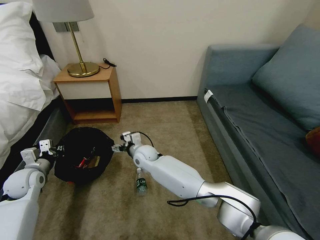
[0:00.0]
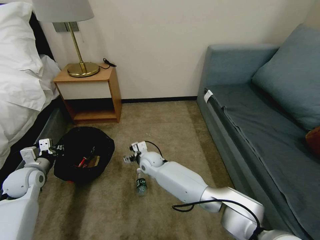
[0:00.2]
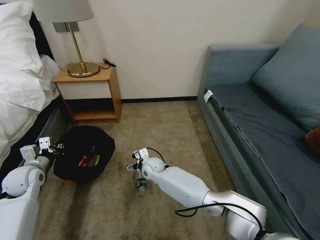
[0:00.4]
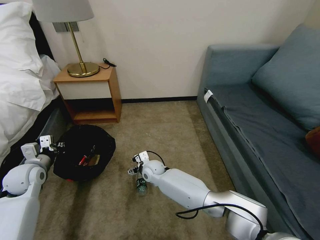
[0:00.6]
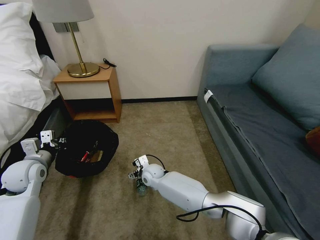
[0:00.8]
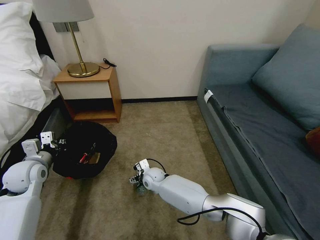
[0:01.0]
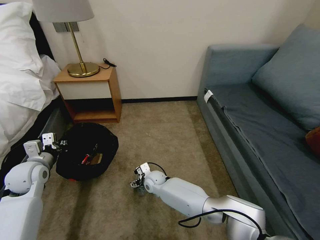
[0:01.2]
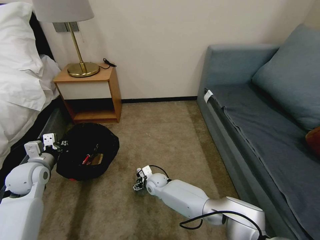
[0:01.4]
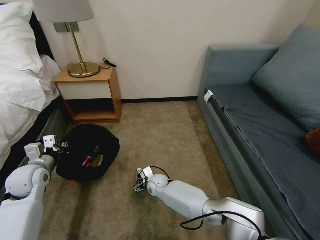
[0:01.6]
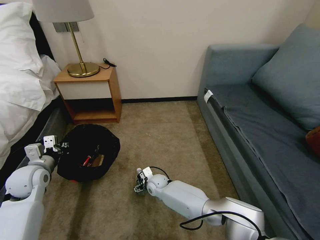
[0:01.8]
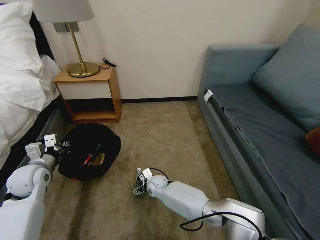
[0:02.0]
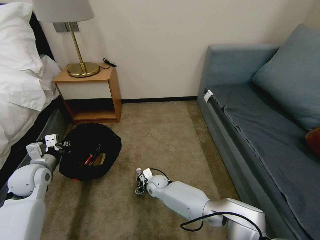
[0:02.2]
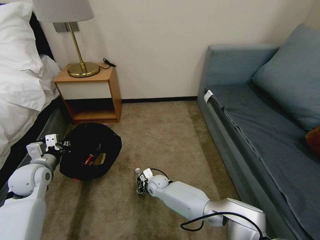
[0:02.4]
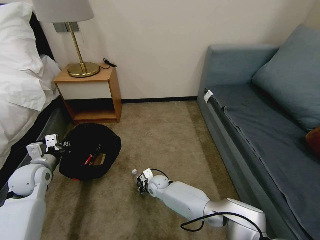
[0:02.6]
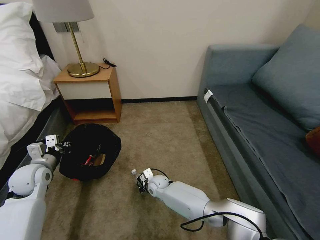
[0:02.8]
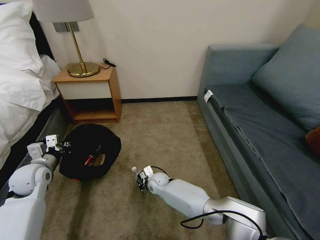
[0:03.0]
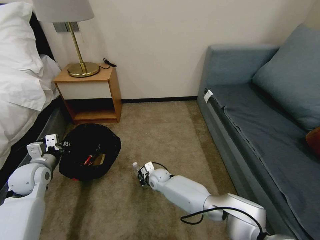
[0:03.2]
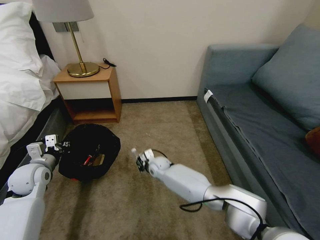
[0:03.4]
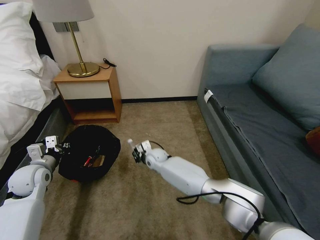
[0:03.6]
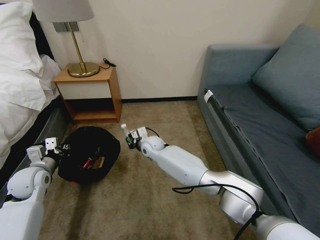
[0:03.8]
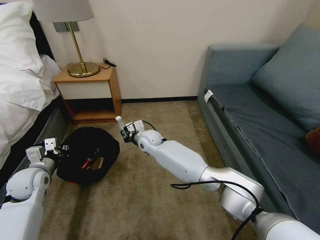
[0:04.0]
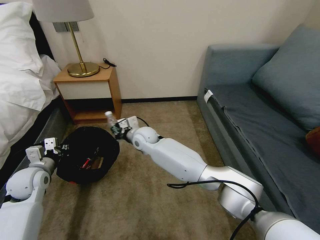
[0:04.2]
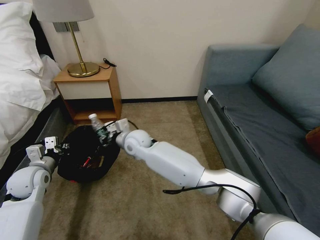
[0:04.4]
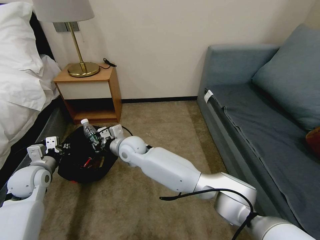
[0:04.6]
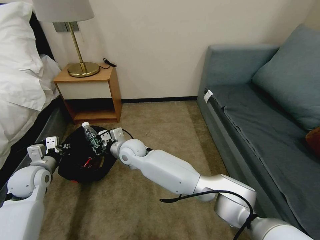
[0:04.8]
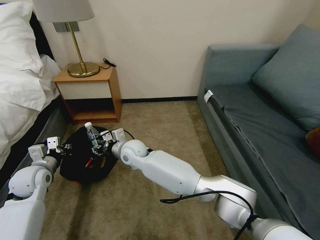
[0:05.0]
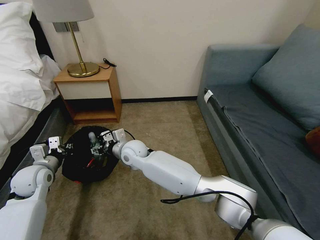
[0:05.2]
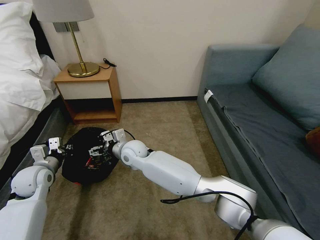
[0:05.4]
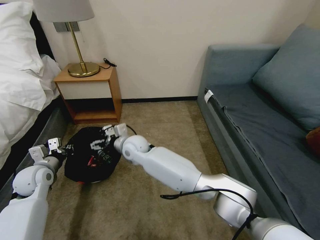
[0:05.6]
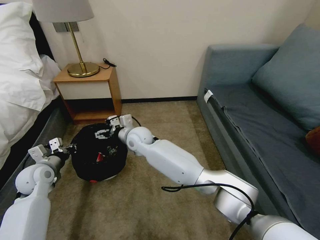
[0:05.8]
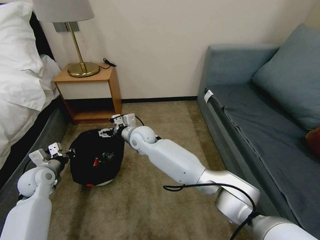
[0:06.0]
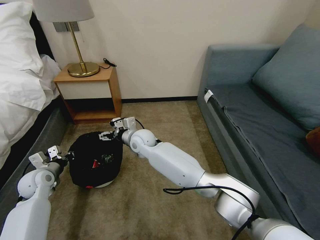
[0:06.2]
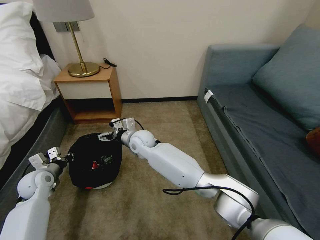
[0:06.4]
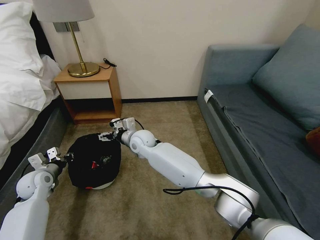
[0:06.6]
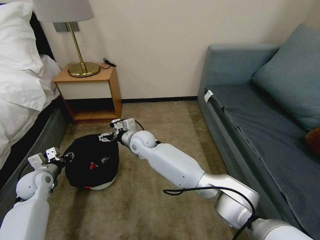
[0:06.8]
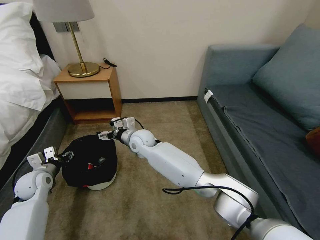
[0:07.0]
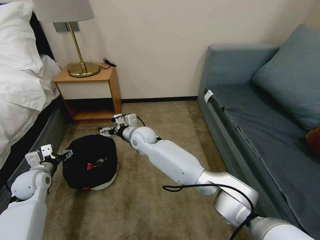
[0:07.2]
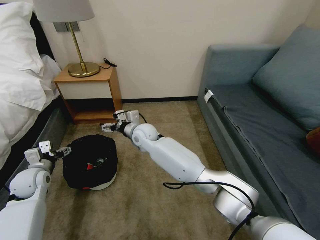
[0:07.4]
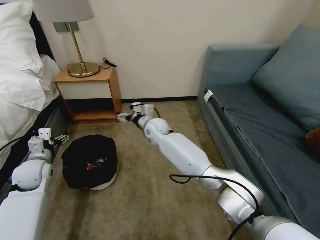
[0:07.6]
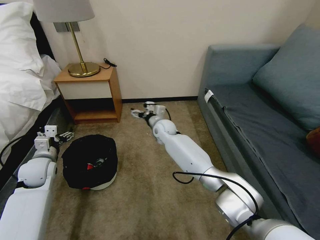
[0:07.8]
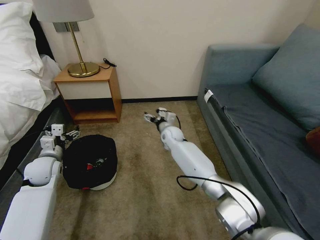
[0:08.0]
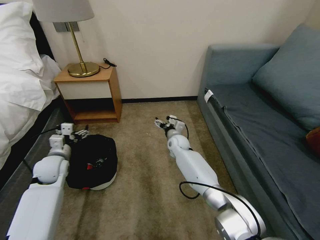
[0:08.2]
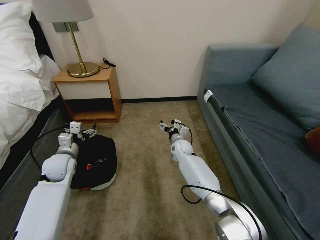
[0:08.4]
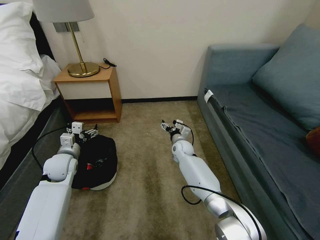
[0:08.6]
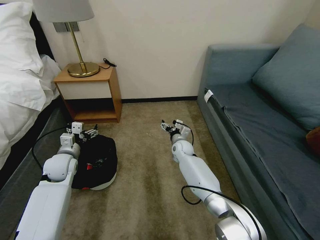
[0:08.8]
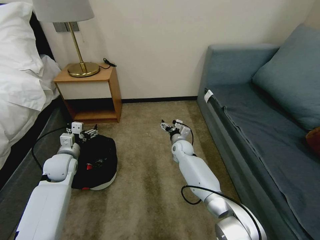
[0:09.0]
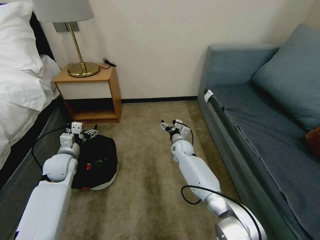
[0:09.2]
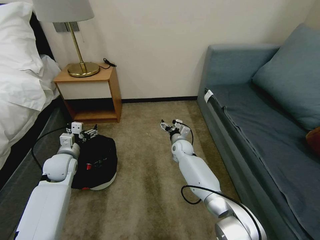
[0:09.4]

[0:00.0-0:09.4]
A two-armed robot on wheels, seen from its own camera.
Task of the whole recording: Pick up the trash bin, then pick up the garbage on the floor and place it into the trash bin.
0:00.0 to 0:01.6: The left gripper moves approximately 5 cm. The right gripper goes about 15 cm downward.
0:01.6 to 0:03.2: The right gripper closes up.
0:03.2 to 0:04.8: The right gripper heads upward and to the left, covering roughly 20 cm.
0:04.8 to 0:06.2: The right gripper changes place by about 5 cm, and opens.
0:06.2 to 0:07.8: The left gripper opens up. The right gripper moves to the right and forward, about 10 cm.
0:07.8 to 0:09.4: The left gripper travels to the right by some 5 cm; the right gripper is displaced downward and to the right by some 15 cm.

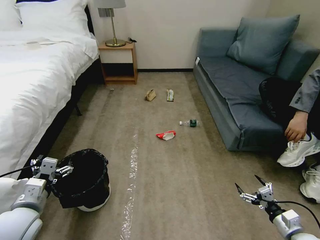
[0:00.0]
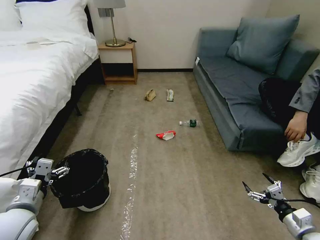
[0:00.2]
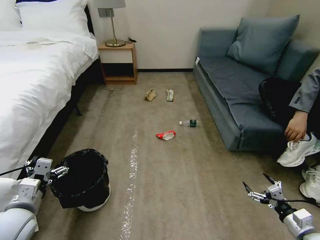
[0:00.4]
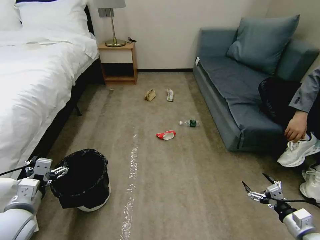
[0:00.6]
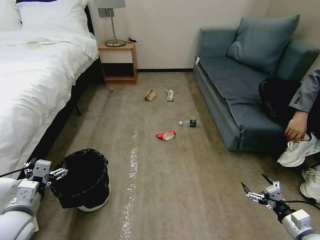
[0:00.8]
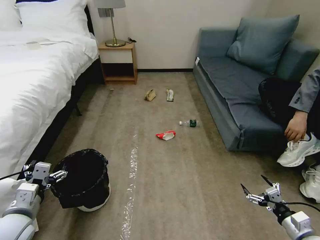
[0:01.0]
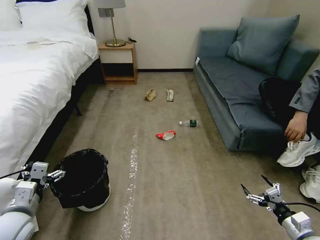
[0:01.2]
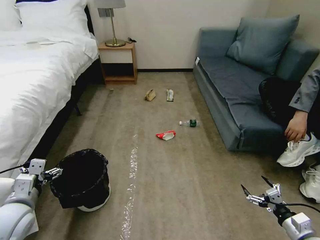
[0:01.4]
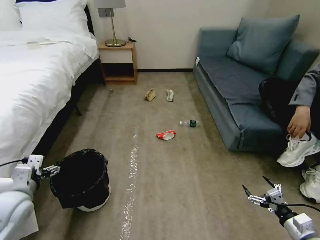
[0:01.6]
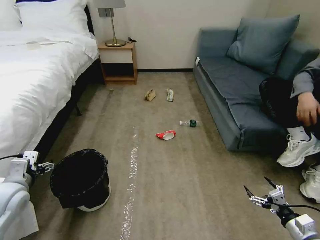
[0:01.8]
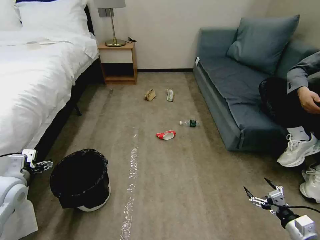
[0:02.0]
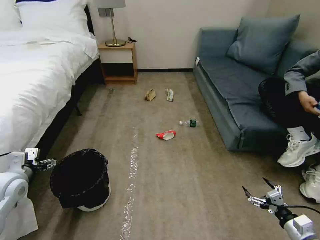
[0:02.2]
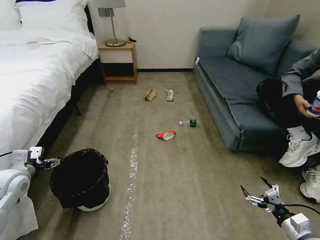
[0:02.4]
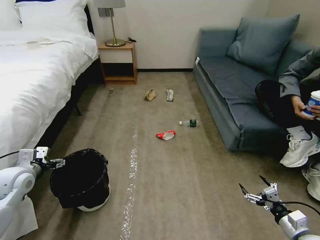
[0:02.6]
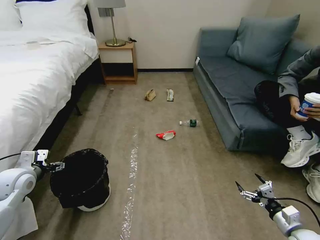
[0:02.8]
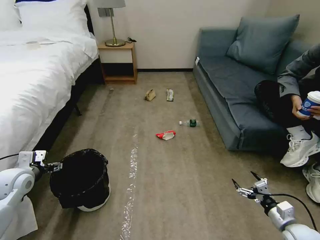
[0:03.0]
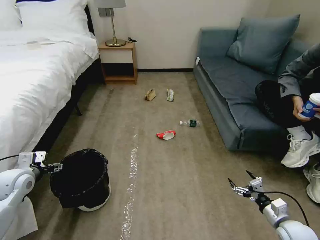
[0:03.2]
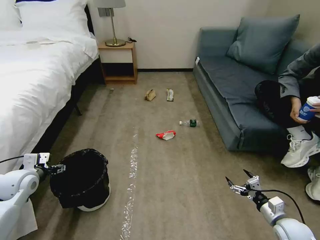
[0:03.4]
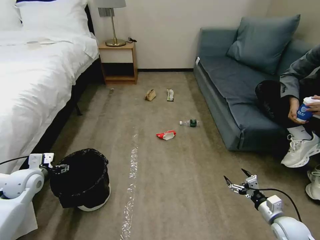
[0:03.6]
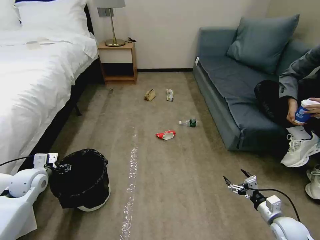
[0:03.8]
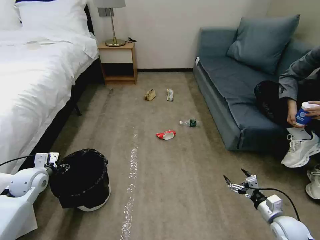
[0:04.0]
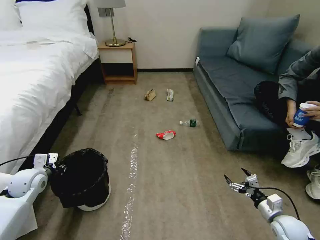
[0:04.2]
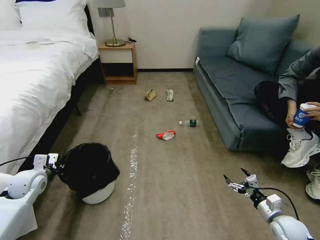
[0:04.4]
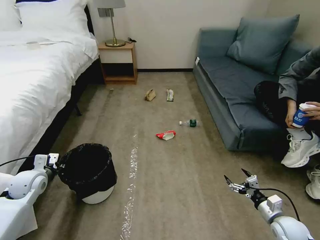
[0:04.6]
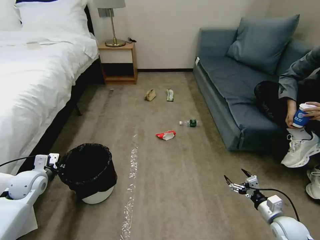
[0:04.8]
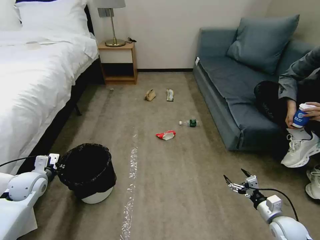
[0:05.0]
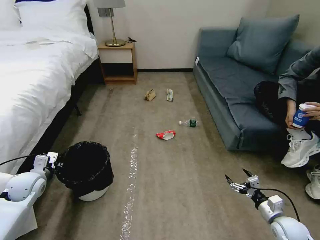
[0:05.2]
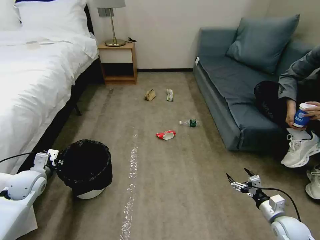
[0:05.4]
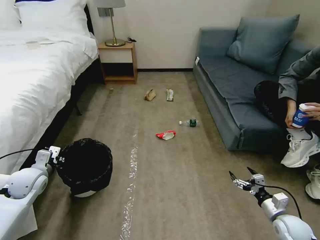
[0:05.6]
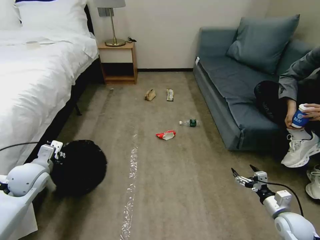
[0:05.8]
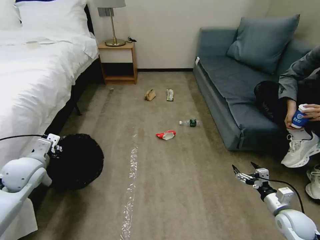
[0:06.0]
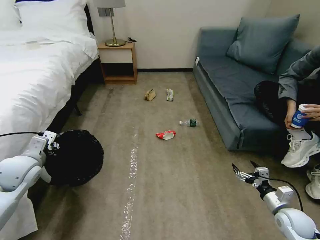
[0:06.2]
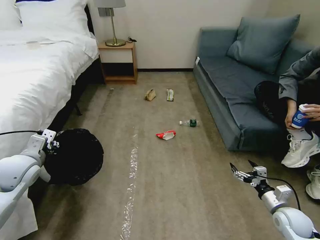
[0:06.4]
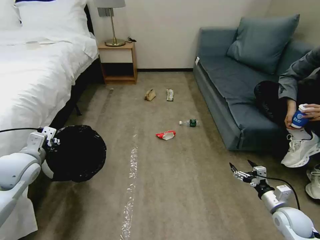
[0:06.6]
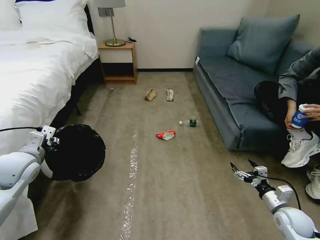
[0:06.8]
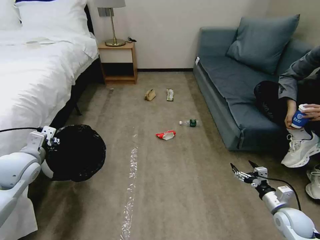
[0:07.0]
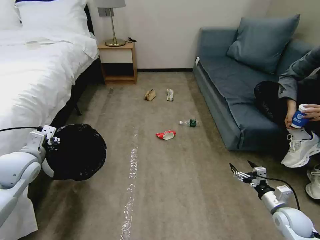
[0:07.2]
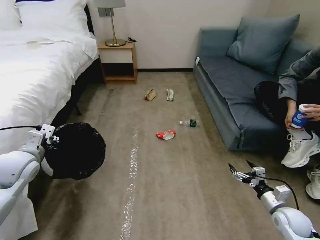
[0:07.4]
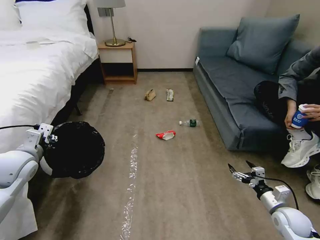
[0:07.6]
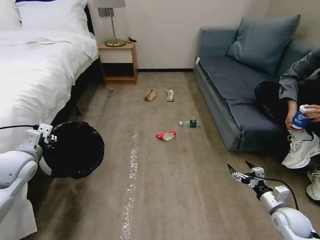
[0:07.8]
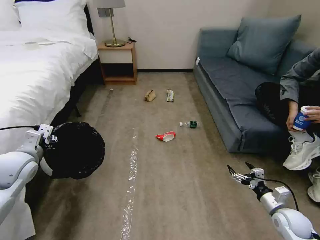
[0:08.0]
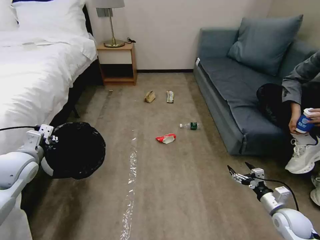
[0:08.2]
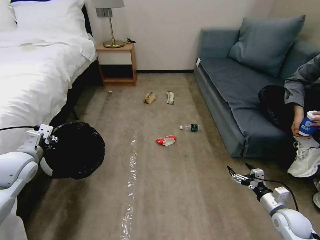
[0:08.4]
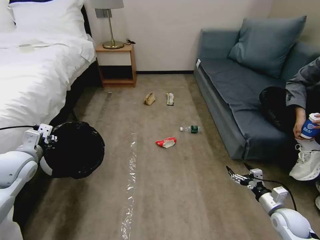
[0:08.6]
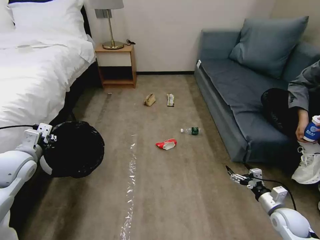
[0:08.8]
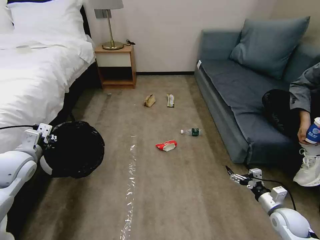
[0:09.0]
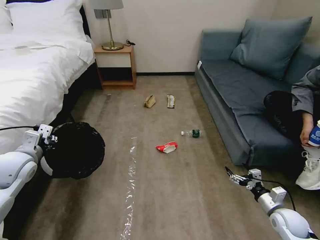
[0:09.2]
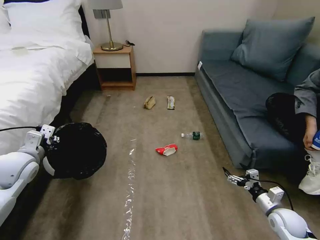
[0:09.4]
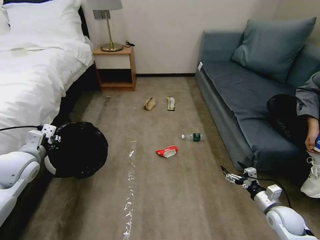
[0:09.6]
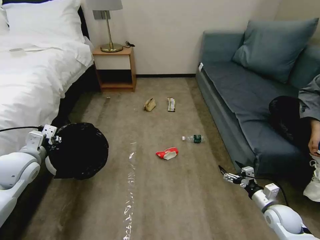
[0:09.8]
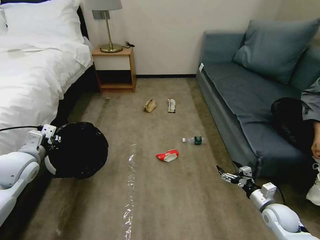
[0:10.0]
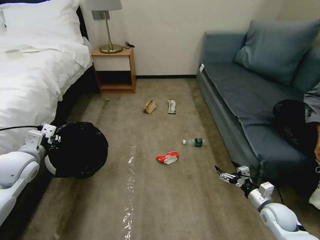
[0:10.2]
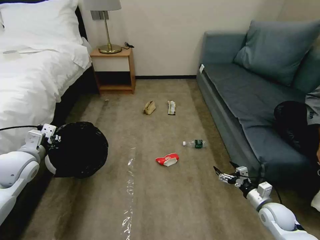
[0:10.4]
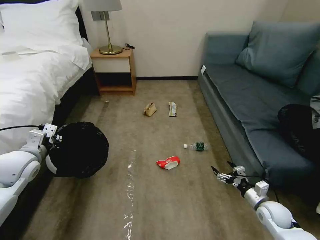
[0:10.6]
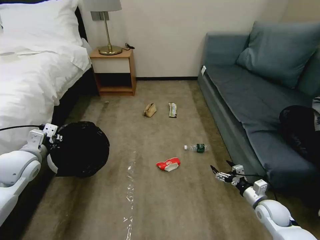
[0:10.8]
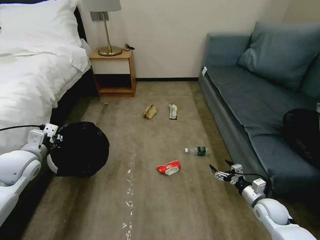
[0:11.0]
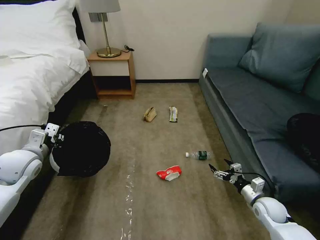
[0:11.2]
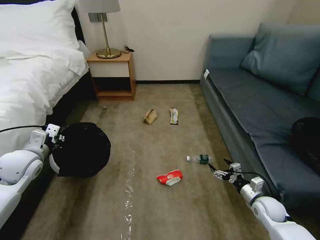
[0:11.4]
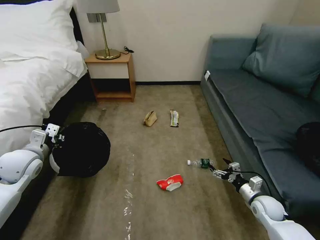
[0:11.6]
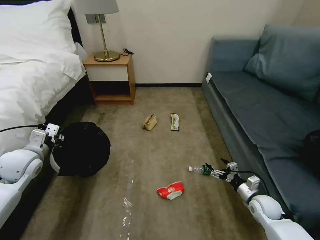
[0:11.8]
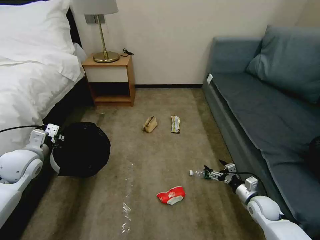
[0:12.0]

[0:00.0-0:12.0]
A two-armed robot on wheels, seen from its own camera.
Task of the whole recording: Pick up the trash bin, then pick up the garbage on the floor and place it into the trash bin.
0:01.6 to 0:03.0: The left gripper goes about 10 cm forward and to the left. Meanwhile the right gripper ends up about 5 cm from where it was.
0:03.0 to 0:04.4: The left gripper closes its fingers.
0:04.4 to 0:06.0: The left gripper shifts about 10 cm upward.
0:06.0 to 0:07.6: The grippers move only a little.
0:07.6 to 0:09.0: Neither gripper changes place.

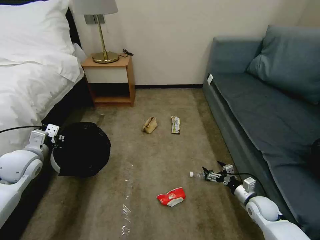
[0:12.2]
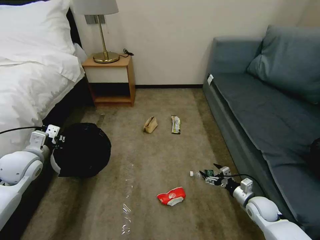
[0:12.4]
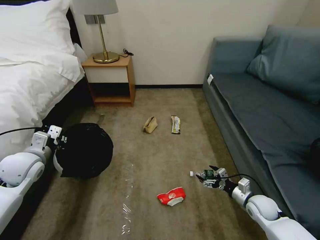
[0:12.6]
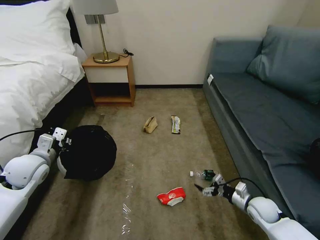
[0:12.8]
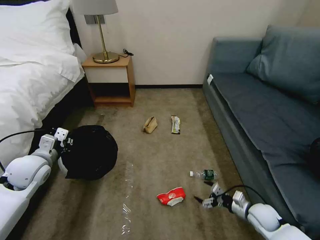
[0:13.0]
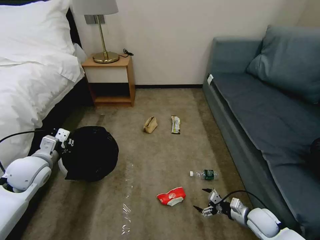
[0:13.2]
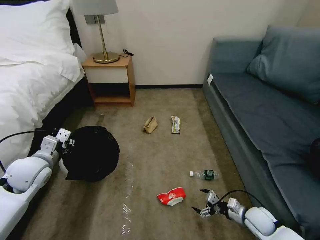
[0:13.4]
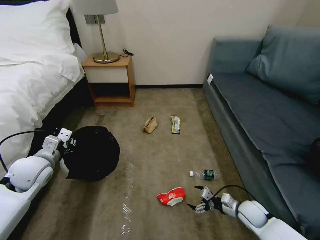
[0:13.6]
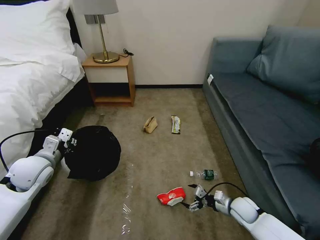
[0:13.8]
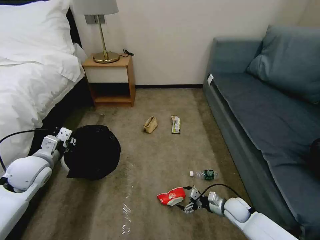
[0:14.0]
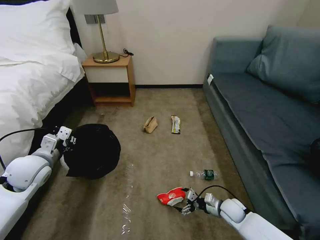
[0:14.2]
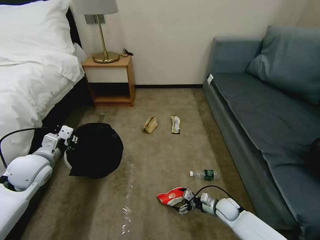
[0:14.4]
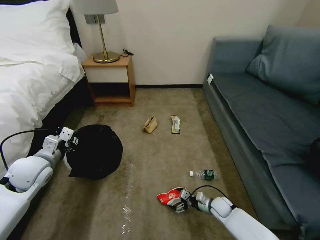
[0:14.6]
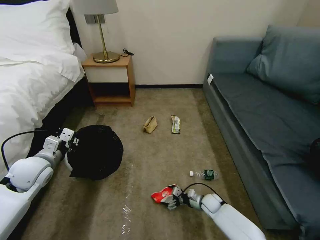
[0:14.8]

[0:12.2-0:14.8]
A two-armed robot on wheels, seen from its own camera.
Task of the whole recording: Pick up the trash bin, then pick up the garbage on the floor and place it into the trash bin.
0:13.4 to 0:14.8: The right gripper heads to the left, downward and forward, covering roughly 20 cm.
